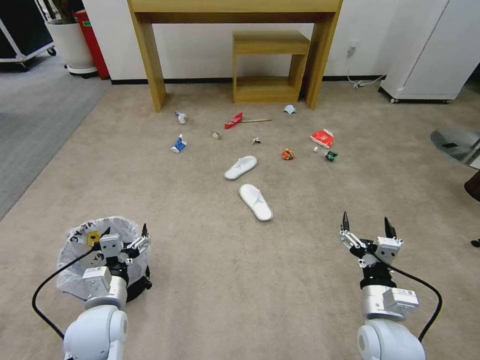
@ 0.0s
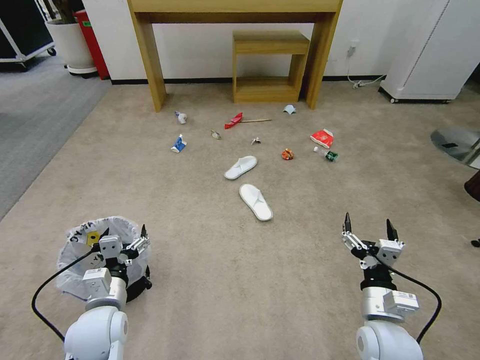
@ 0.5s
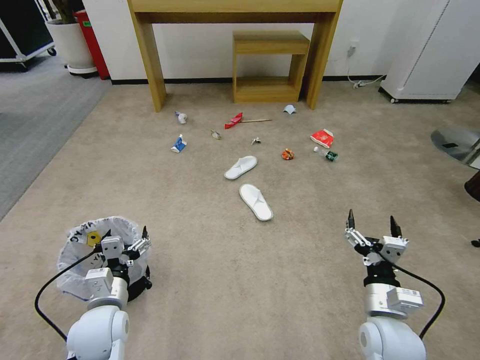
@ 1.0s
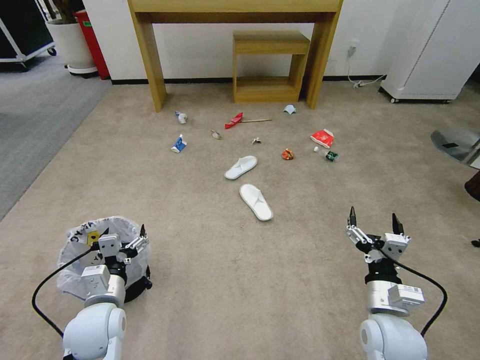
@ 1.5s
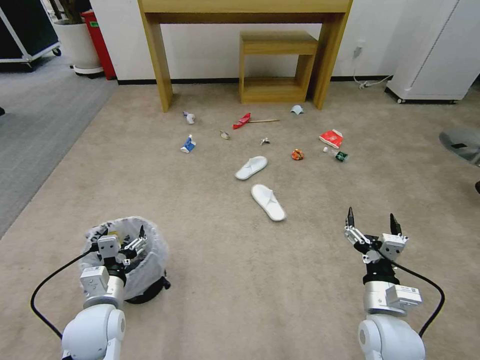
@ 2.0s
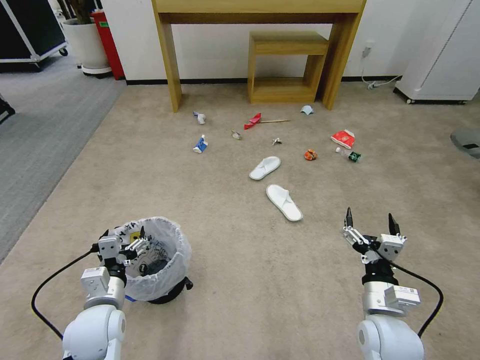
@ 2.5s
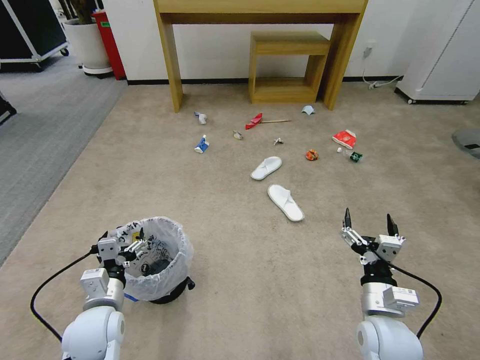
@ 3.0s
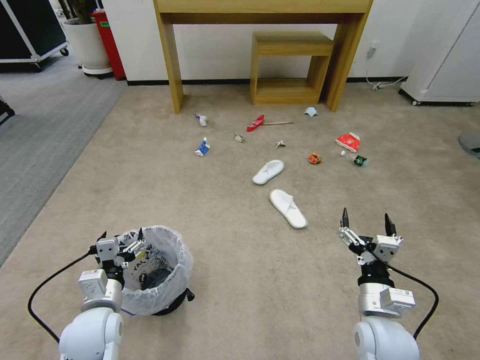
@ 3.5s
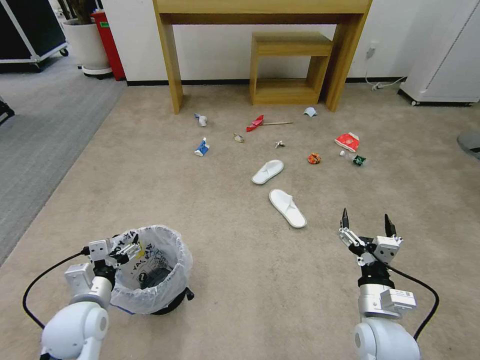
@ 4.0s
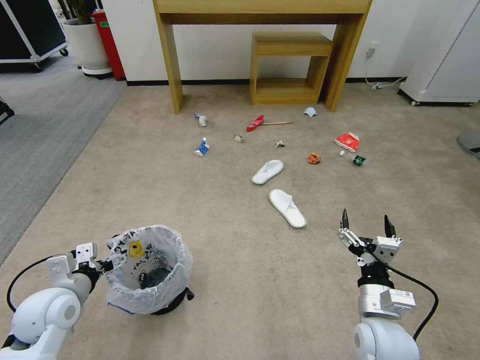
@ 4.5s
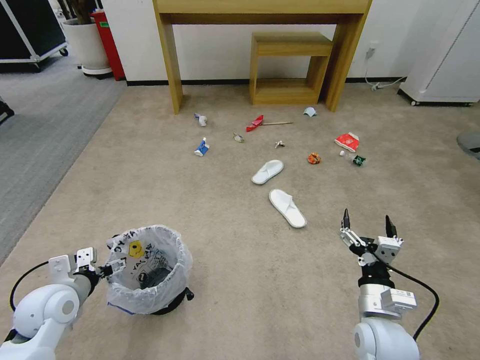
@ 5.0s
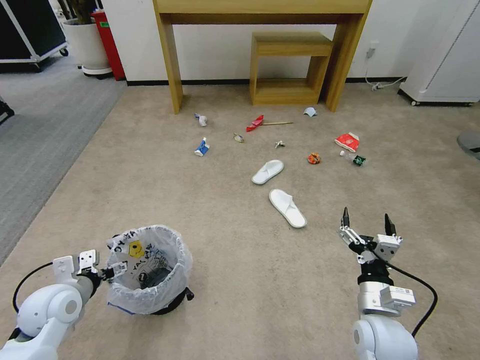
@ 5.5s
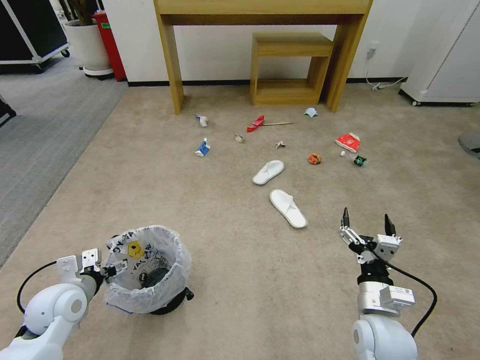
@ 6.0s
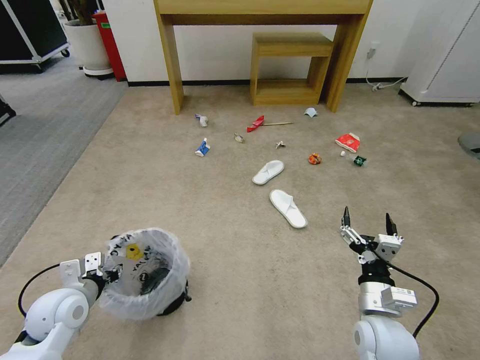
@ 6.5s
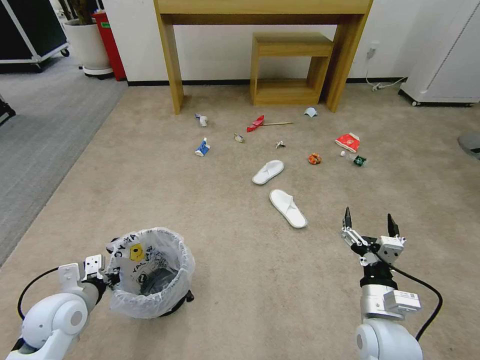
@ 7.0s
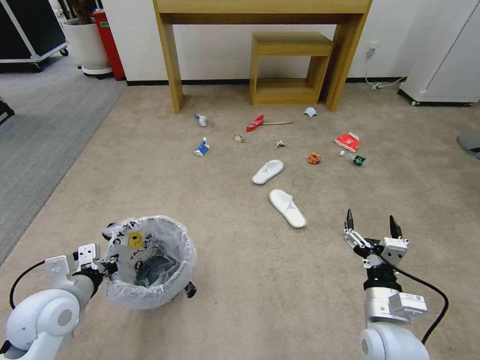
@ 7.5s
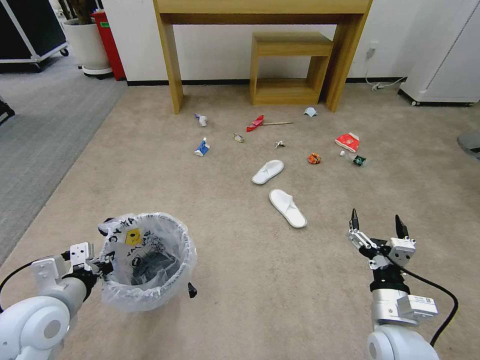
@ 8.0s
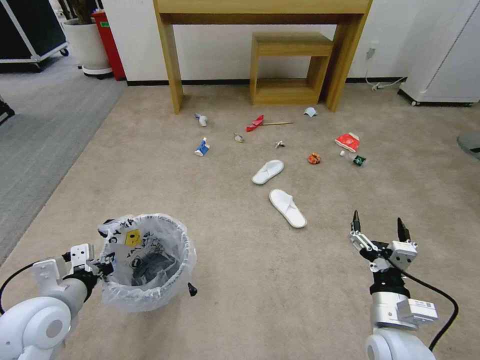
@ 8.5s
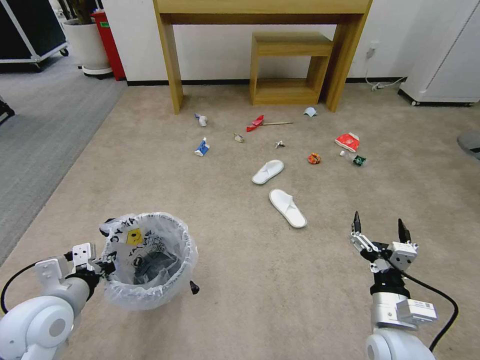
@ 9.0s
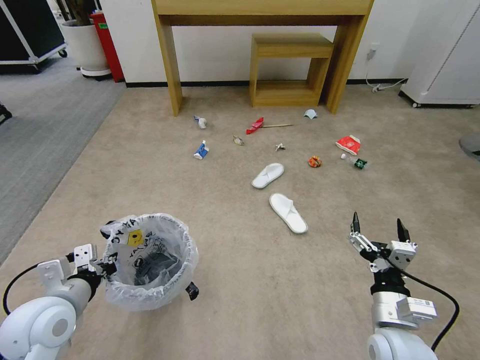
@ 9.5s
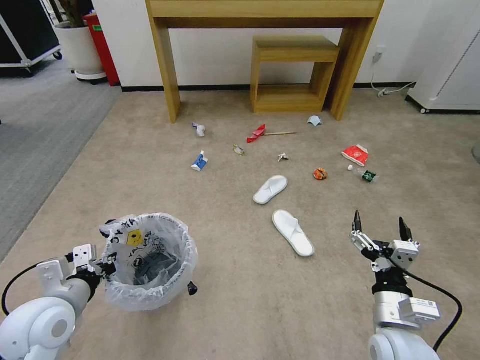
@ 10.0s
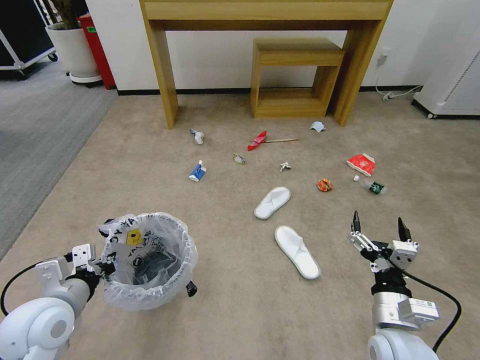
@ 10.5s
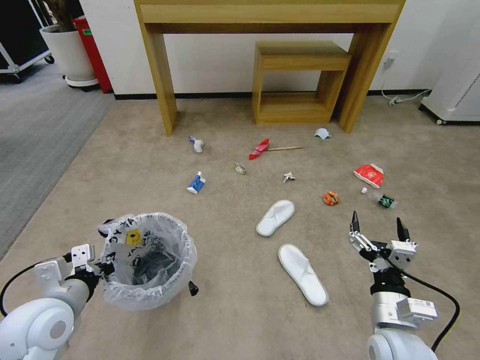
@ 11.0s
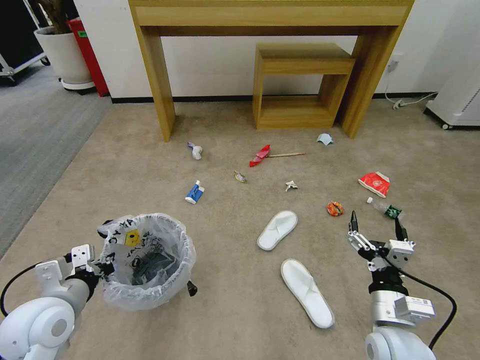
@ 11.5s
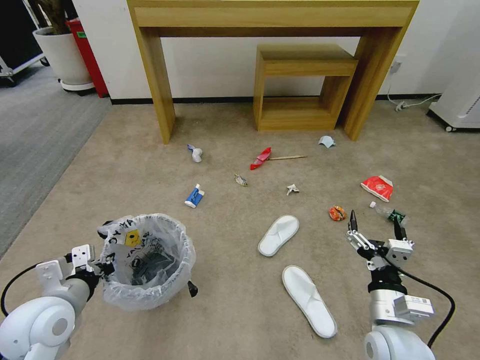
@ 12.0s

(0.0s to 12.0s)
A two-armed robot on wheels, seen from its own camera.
Task of the whole recording: Pick up the trash bin and place the garbage on the floor into it.
4.0s - 6.0s: The left gripper heads to the left, covering about 5 cm.
6.0s - 8.0s: The left gripper shifts about 10 cm upward and backward, and closes its fingers.
8.0s - 10.0s: Both grippers stay put.

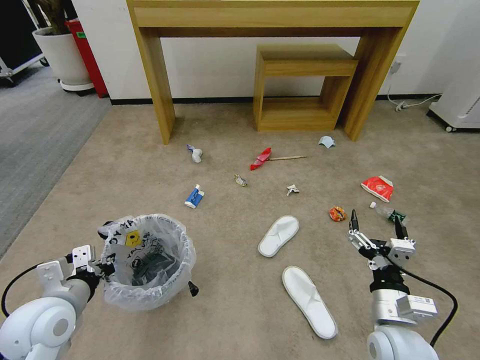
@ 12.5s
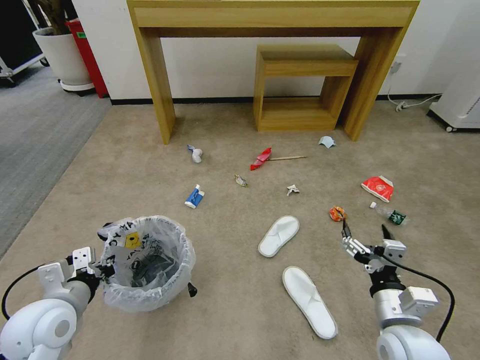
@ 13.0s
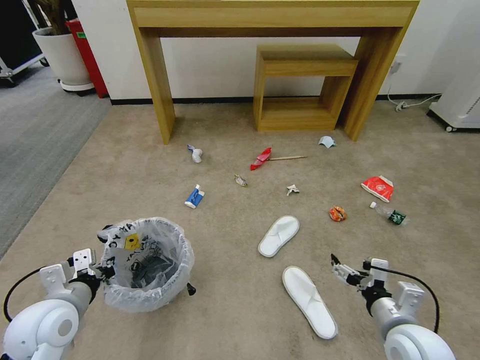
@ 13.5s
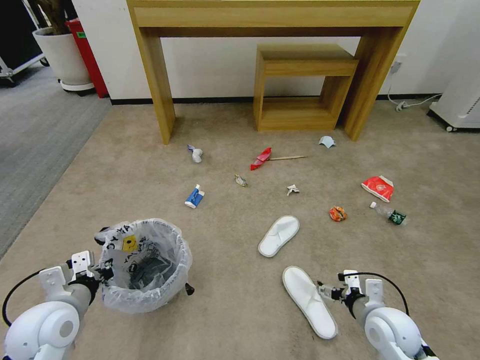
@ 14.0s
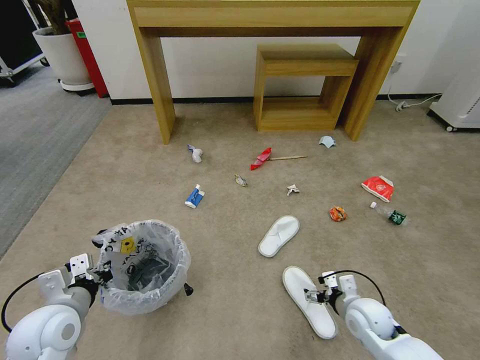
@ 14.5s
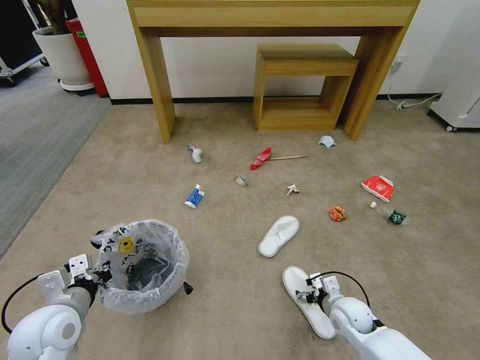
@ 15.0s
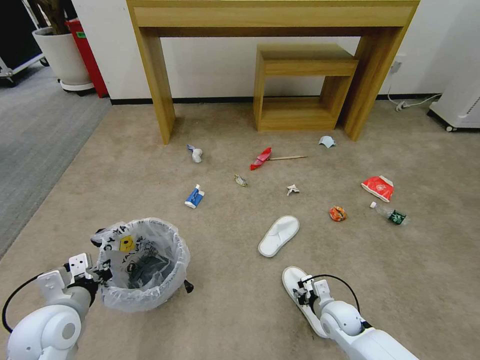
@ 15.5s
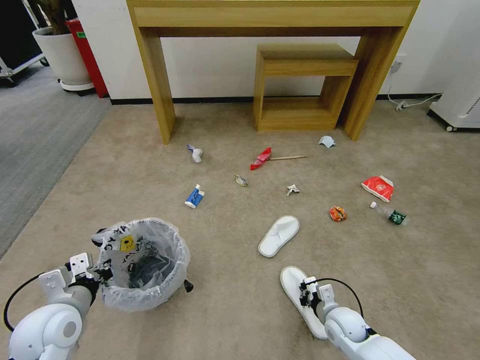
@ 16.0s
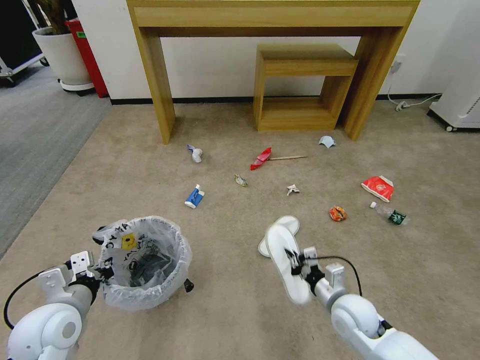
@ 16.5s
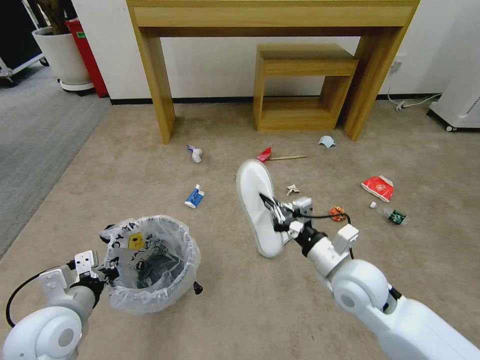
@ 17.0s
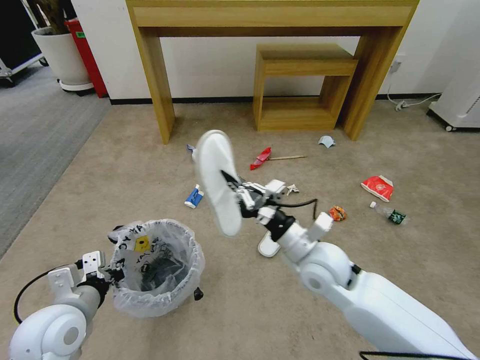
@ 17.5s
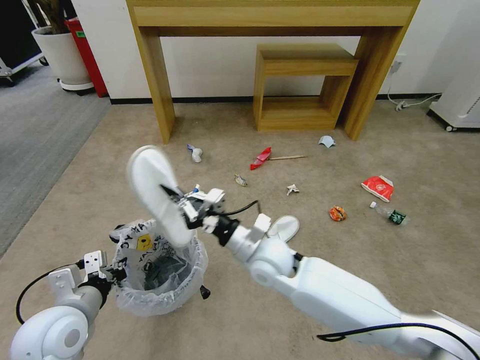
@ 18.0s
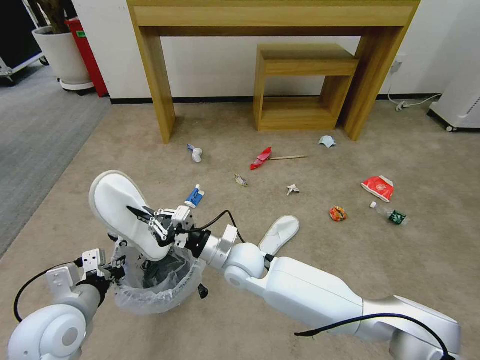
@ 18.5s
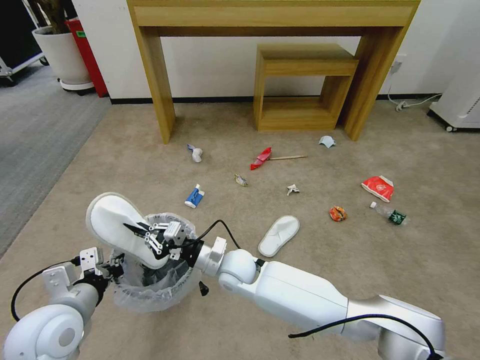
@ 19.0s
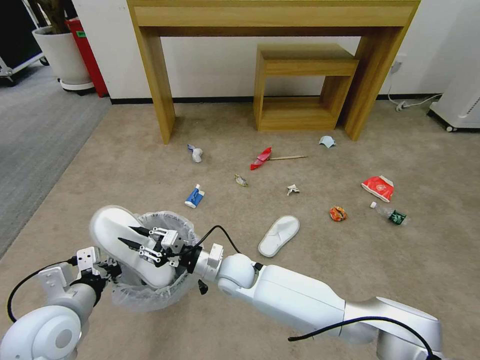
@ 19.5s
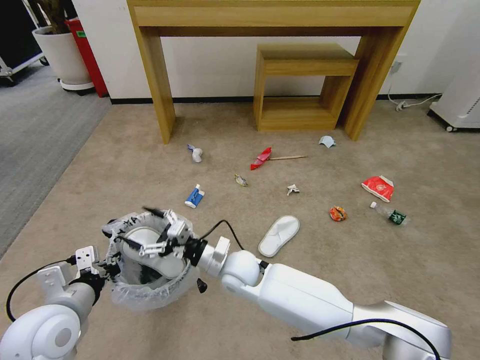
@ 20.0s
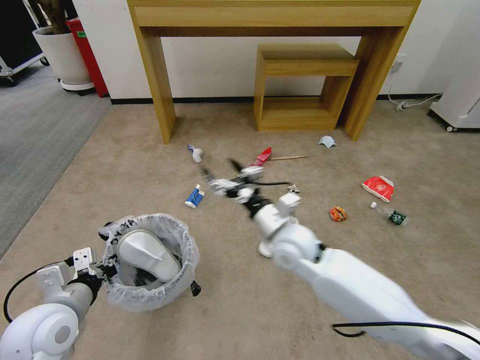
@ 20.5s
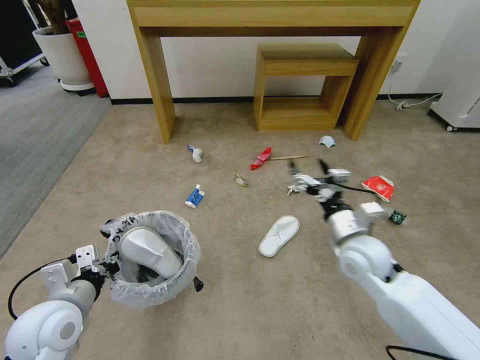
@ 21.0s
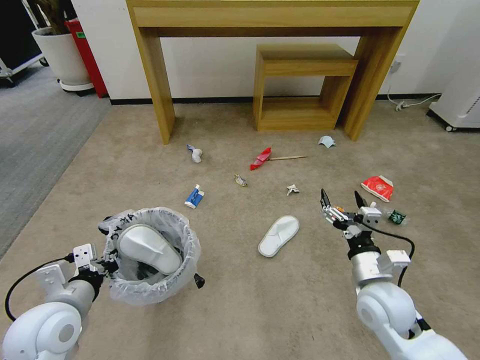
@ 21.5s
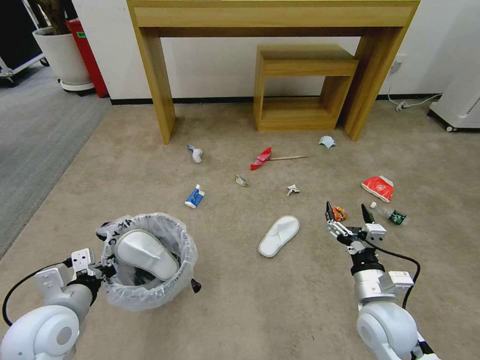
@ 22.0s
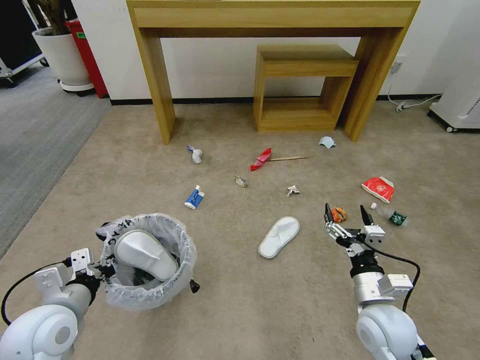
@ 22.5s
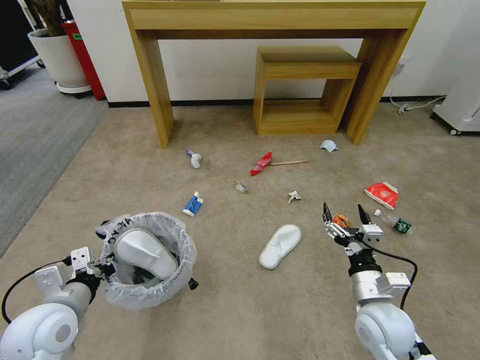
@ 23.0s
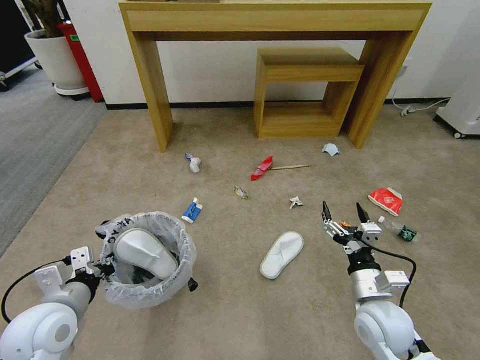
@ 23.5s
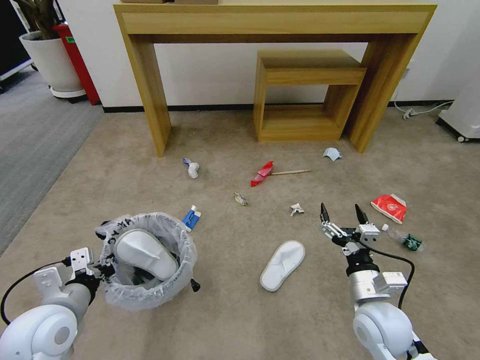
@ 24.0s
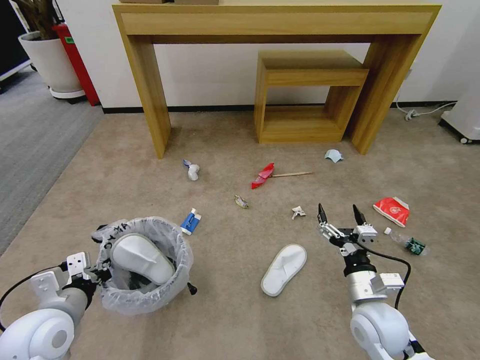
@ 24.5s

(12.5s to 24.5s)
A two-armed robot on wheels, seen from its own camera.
Task of the whole recording: Pick up the trash bin and place the garbage on the floor into it.
12.5s - 14.5s: The right gripper heads downward and forward, covering approximately 15 cm.
14.5s - 16.5s: The right gripper goes downward and returns, approximately 10 cm each way, and closes up.
16.5s - 18.5s: The right gripper moves to the left, approximately 25 cm.
18.5s - 20.5s: The right gripper travels to the right and upward by some 10 cm, and opens up.
20.5s - 22.5s: The right gripper moves to the right, backward and downward, some 25 cm.

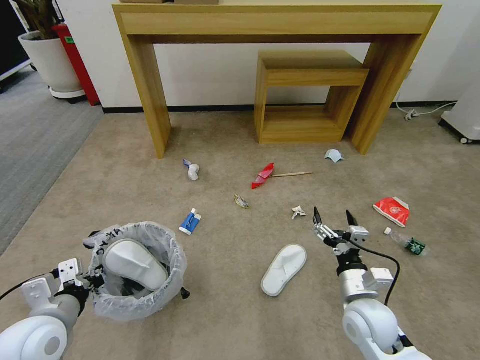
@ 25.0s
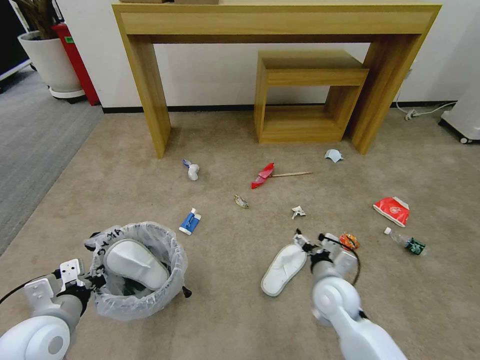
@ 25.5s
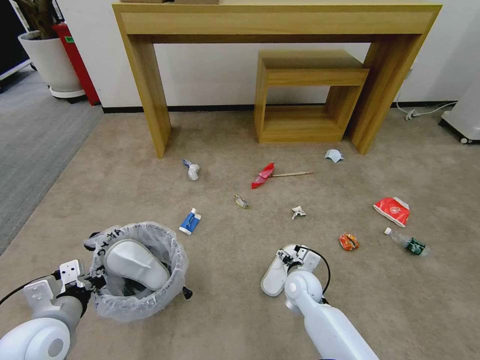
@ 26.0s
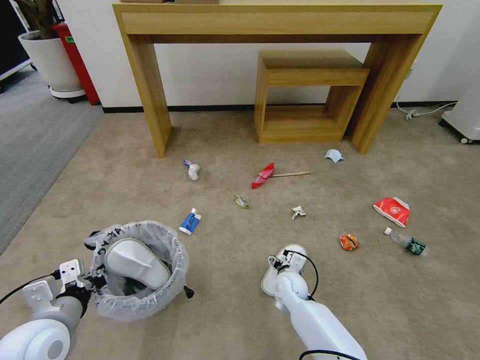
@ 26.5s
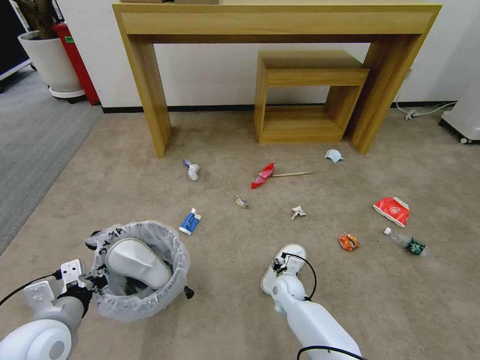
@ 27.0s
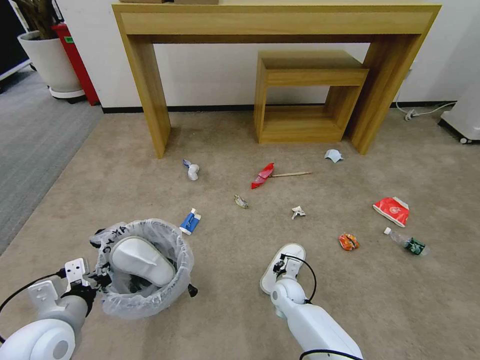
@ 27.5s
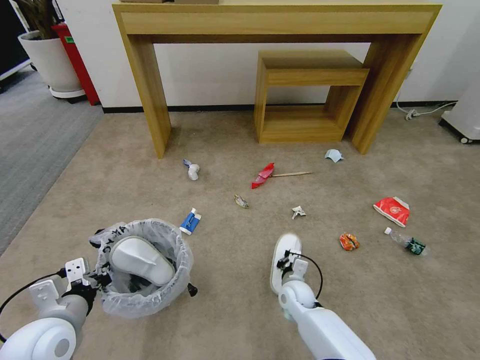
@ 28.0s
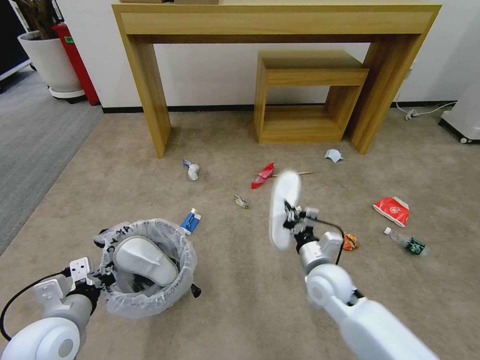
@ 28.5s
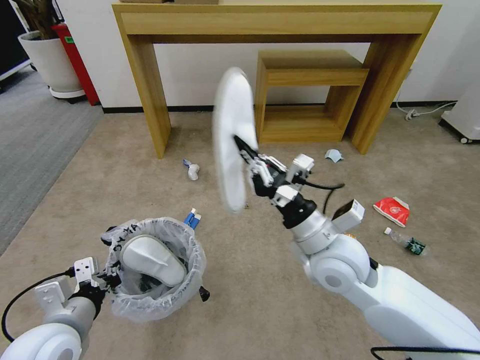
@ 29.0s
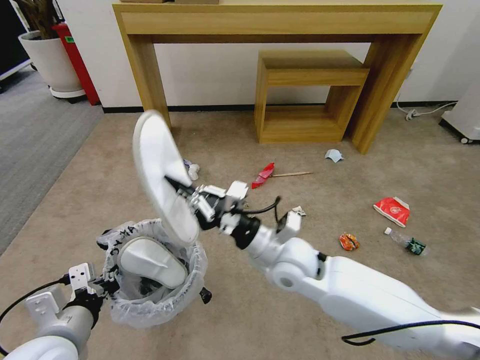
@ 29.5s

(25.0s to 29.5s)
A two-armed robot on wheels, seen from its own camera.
Task of the whole recording: Pick up the trash bin and place the garbage on the floor into it.
25.0s - 27.0s: The right gripper travels downward, forward and to the left by approximately 25 cm, and closes its fingers.
27.0s - 29.5s: The right gripper is displaced upward by roughly 25 cm, and closes; the left gripper changes place by about 5 cm.
